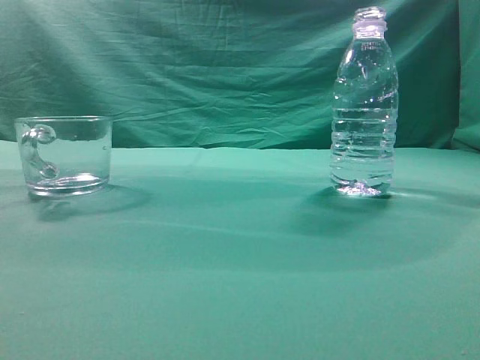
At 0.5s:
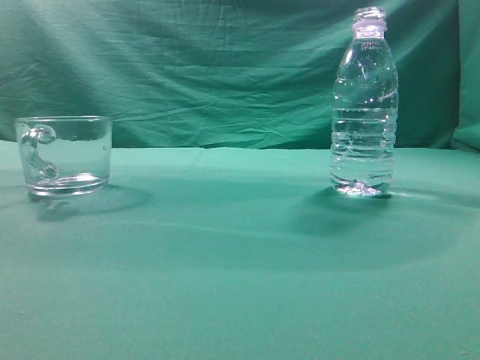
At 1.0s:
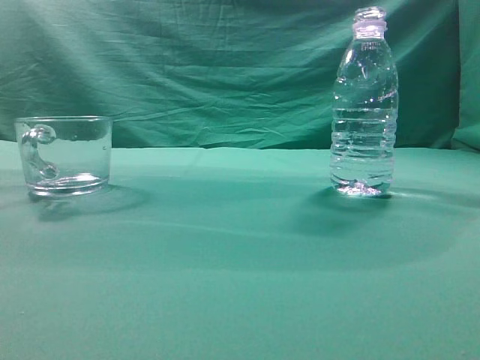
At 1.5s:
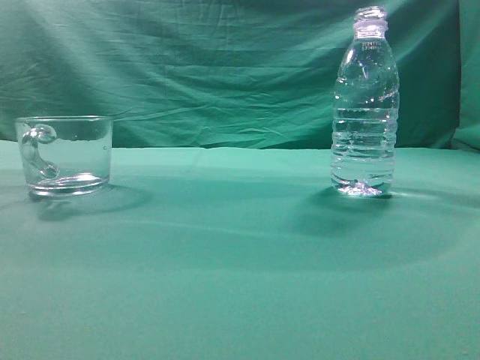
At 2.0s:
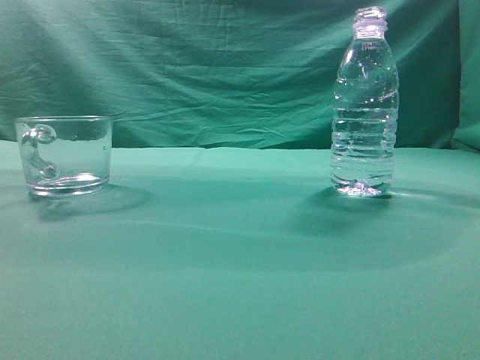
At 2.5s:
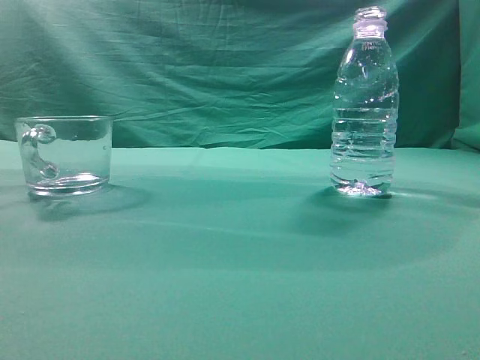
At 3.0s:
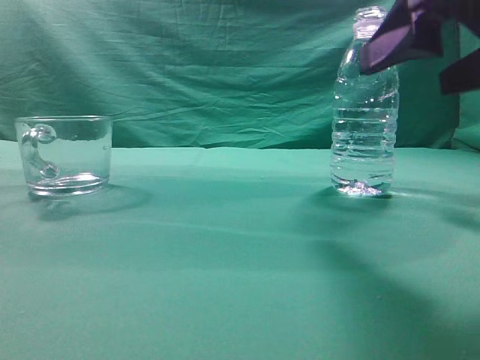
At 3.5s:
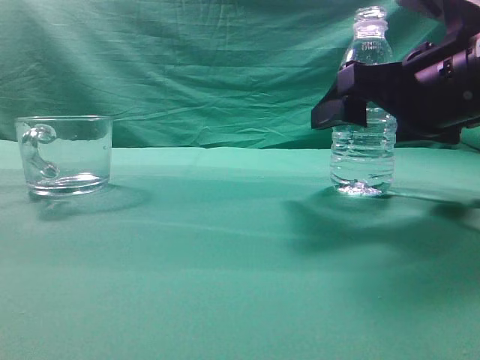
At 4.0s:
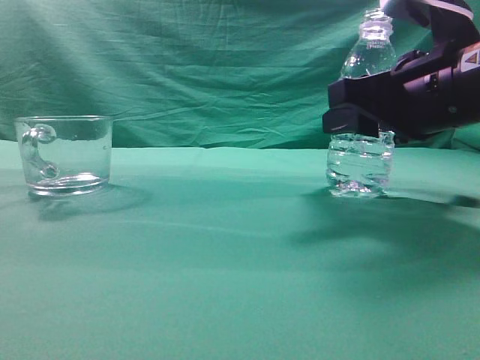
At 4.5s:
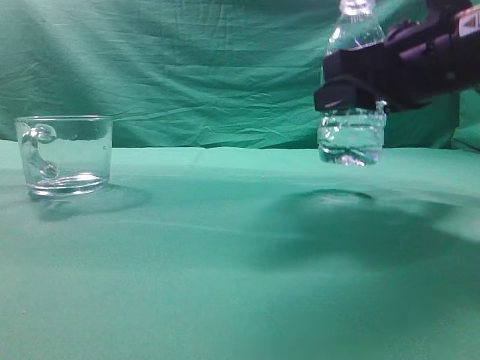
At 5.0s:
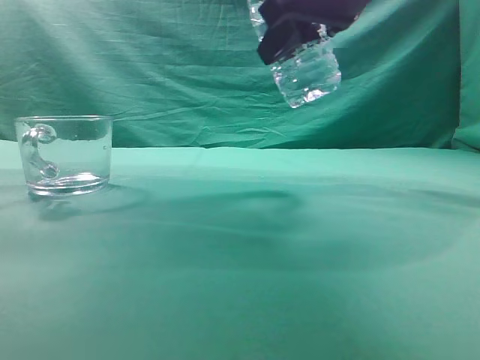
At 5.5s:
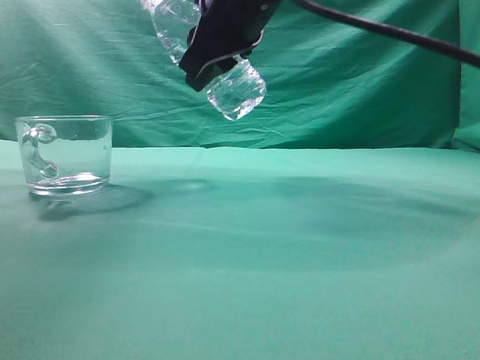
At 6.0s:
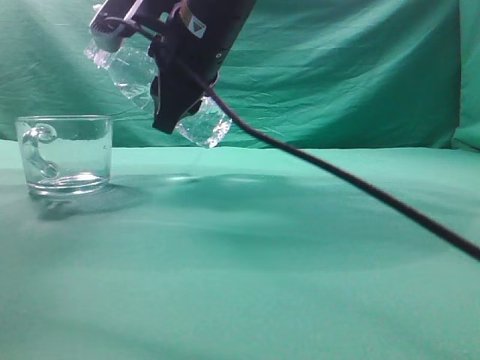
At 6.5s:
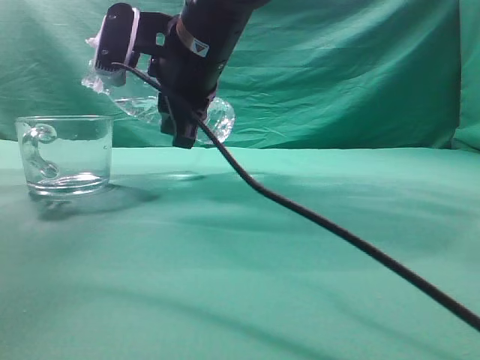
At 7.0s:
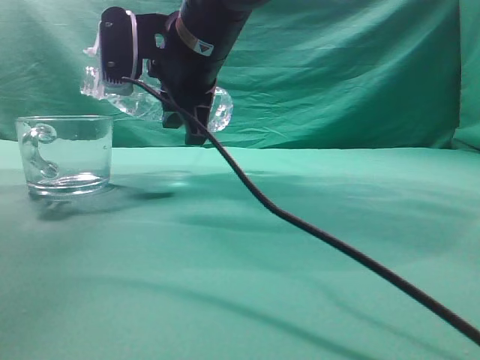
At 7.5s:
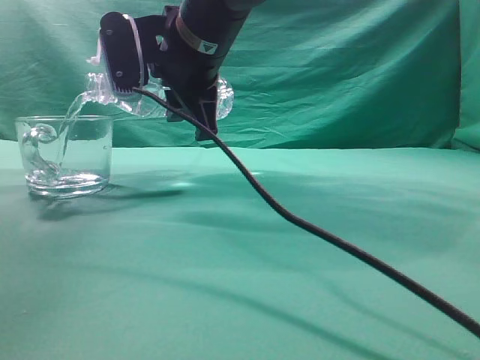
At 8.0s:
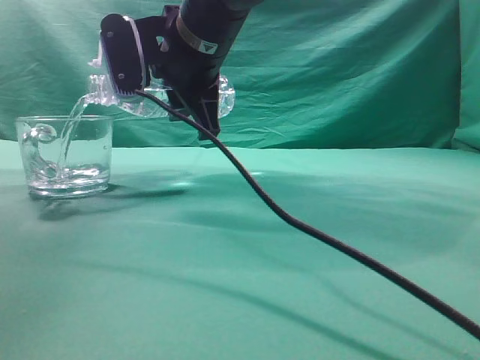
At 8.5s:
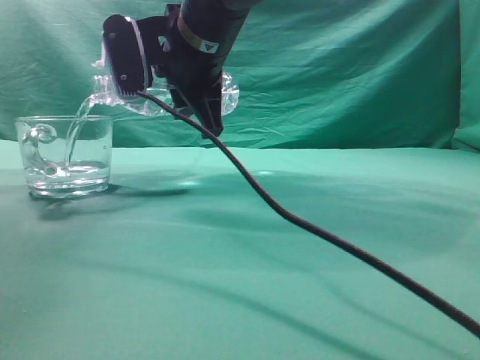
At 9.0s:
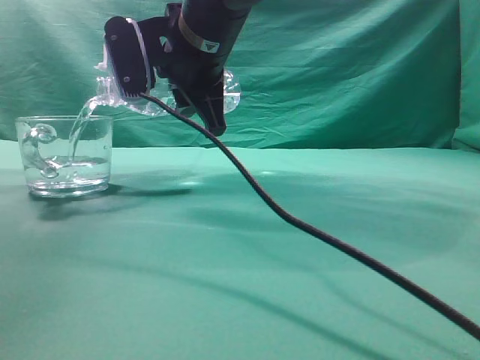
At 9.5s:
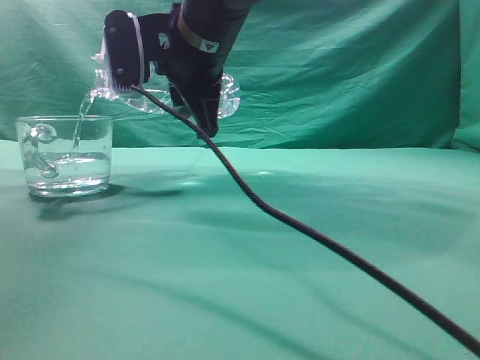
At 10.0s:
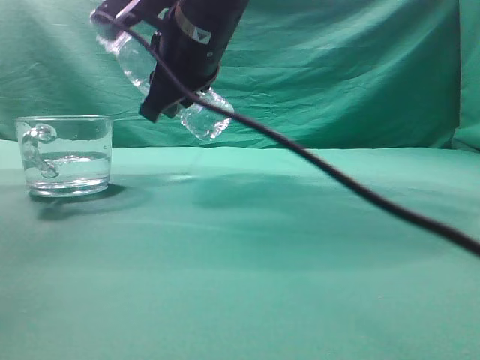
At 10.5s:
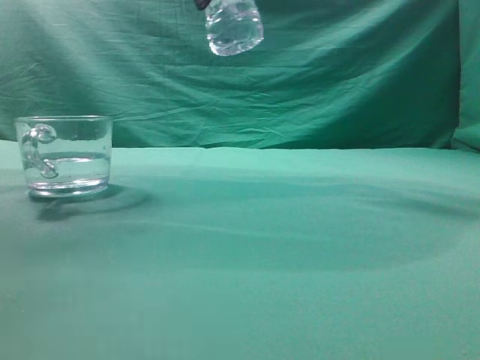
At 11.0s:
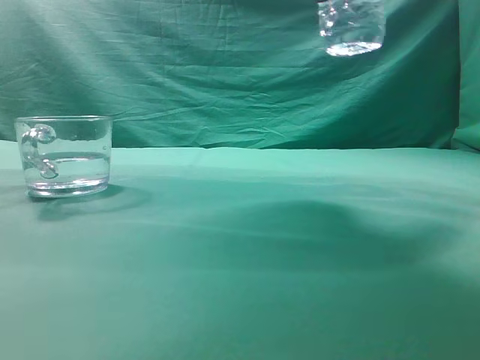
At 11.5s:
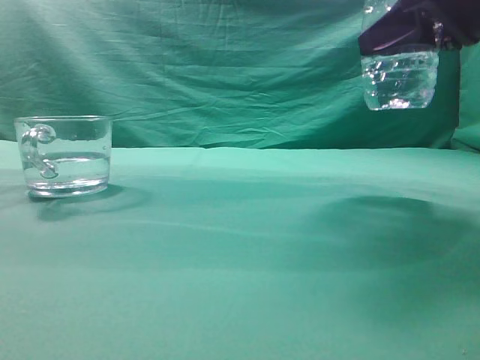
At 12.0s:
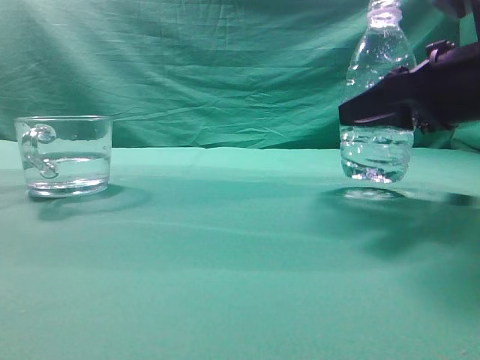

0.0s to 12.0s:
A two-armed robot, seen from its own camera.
Task of the whole recording: pick up the water bottle and pour the water in it into the glass.
Step, 0.0s to 4.5s: Grasp the mineral water bottle.
Step, 5.0s to 9.5s: Pour water into the teacup.
2.0s to 4.0s: The right gripper moves forward, downward and to the left, approximately 25 cm, and opens.
4.0s to 6.0s: The right gripper is displaced to the left by approximately 20 cm.
10.0s to 12.0s: The right gripper goes about 25 cm to the right.

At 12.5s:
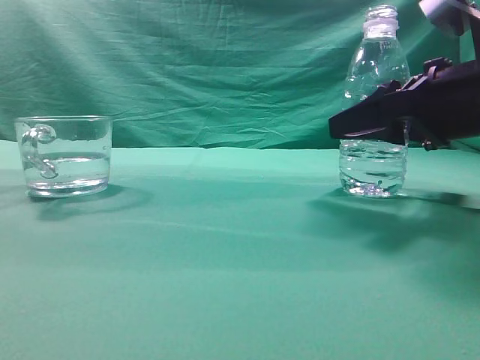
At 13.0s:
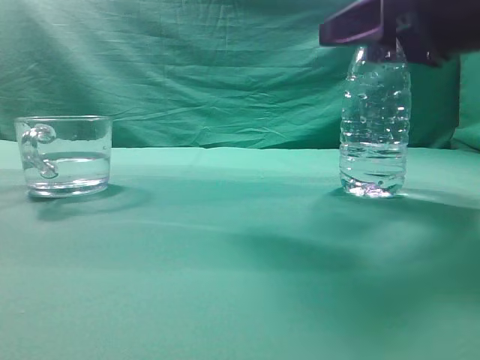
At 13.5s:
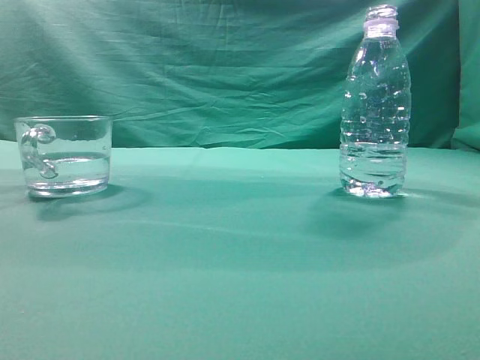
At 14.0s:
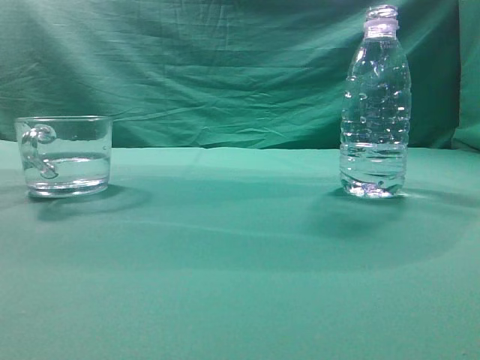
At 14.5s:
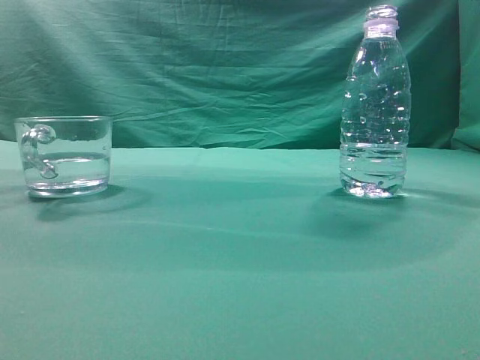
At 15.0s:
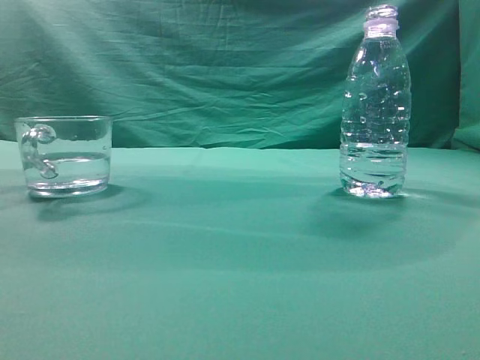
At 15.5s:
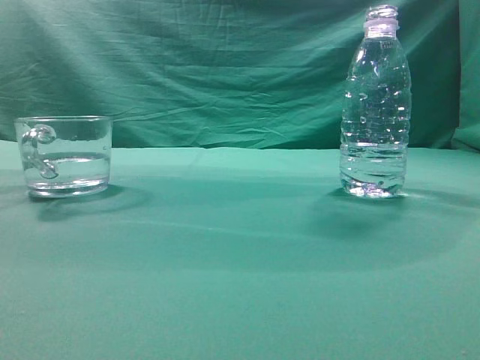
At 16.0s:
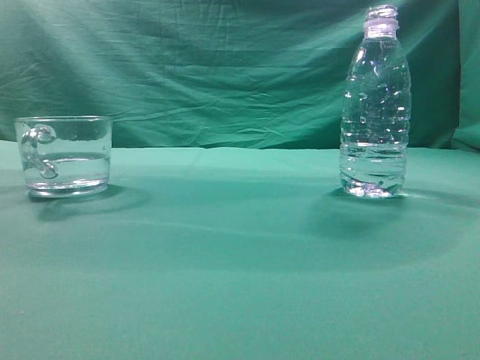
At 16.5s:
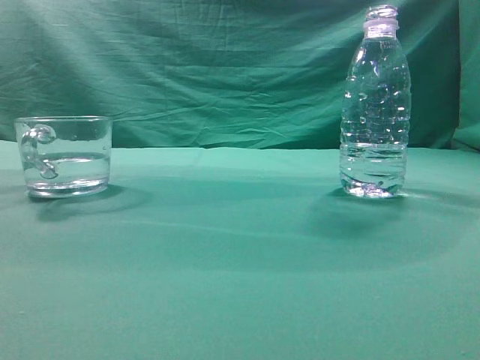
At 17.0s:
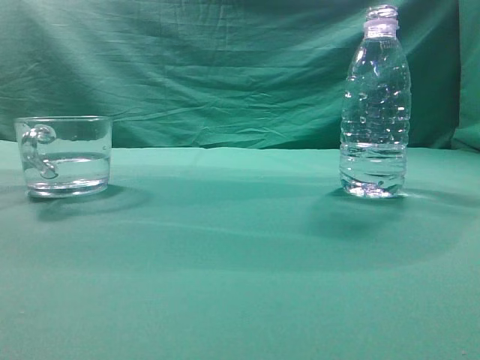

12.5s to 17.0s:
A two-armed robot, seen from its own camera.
Task of the whole recording: pick up the water bottle and pour the water in it into the glass.
12.5s to 14.5s: The right gripper heads upward and backward, covering roughly 40 cm, and closes.
